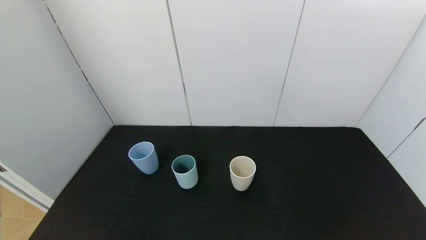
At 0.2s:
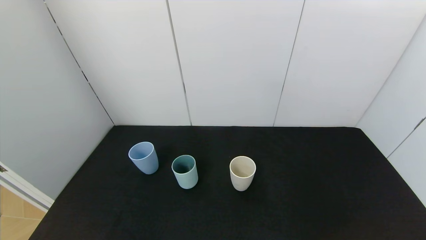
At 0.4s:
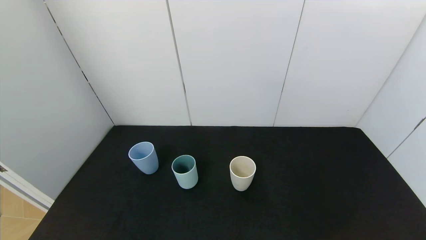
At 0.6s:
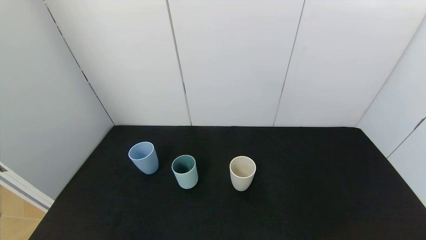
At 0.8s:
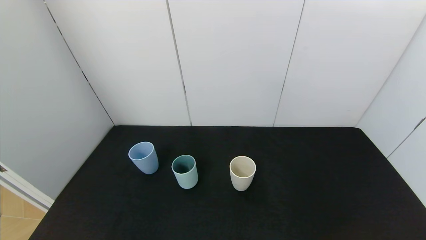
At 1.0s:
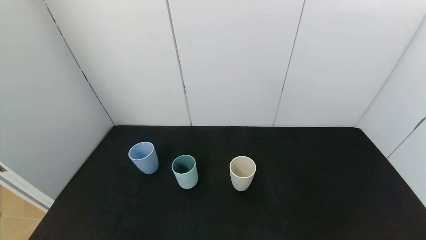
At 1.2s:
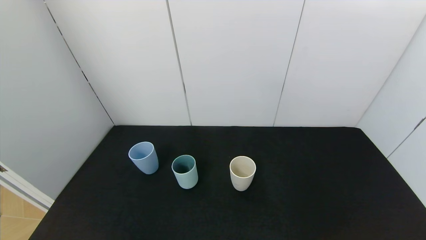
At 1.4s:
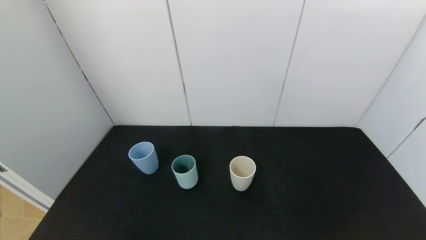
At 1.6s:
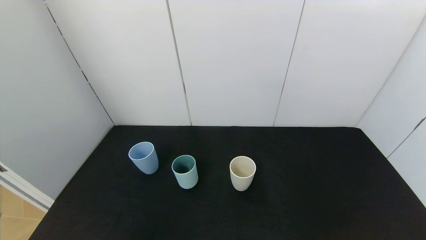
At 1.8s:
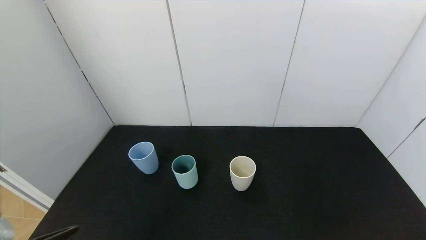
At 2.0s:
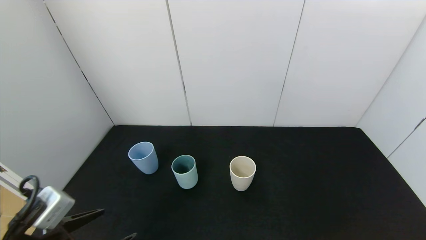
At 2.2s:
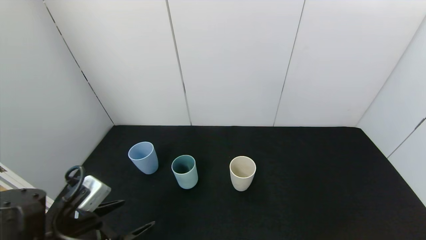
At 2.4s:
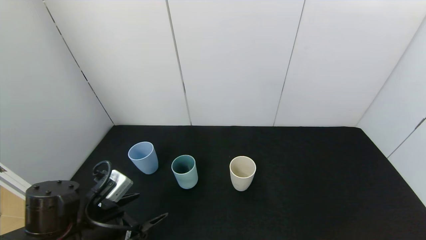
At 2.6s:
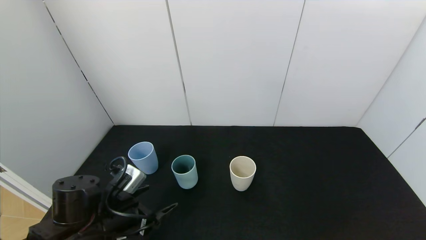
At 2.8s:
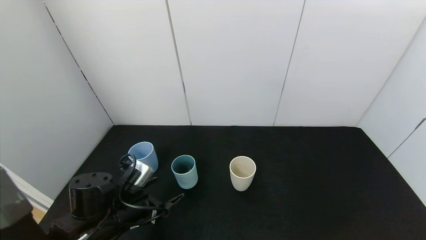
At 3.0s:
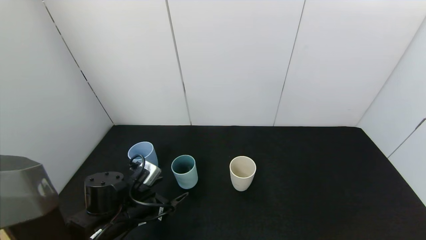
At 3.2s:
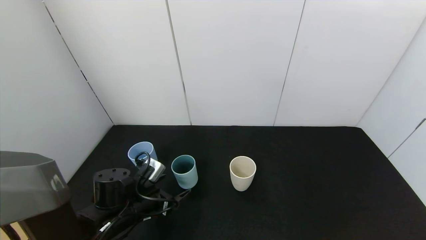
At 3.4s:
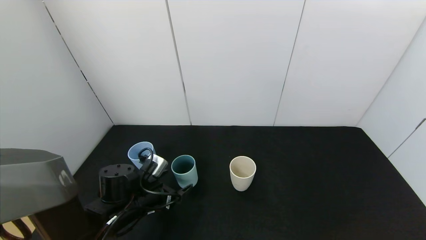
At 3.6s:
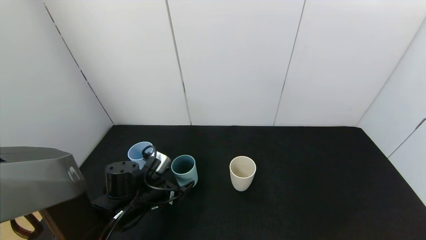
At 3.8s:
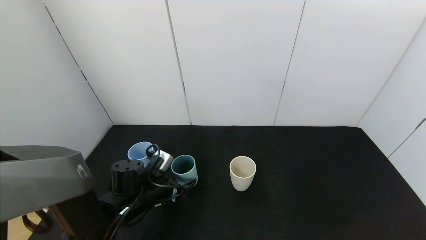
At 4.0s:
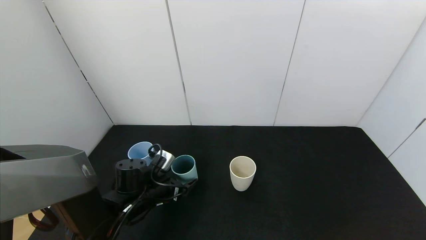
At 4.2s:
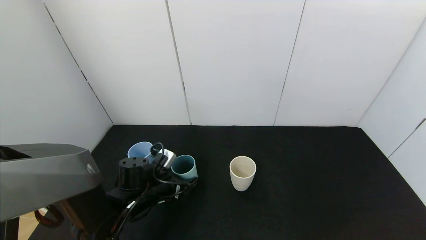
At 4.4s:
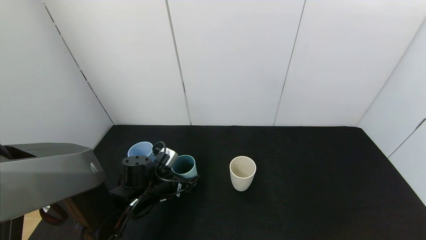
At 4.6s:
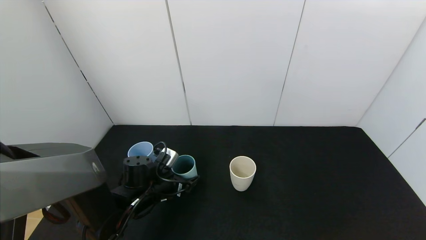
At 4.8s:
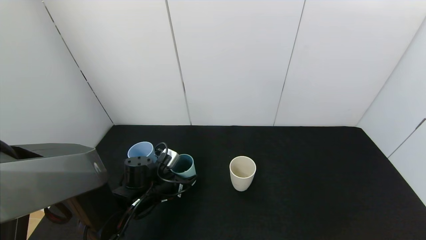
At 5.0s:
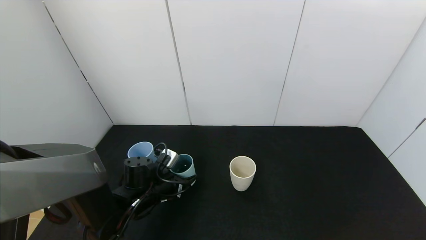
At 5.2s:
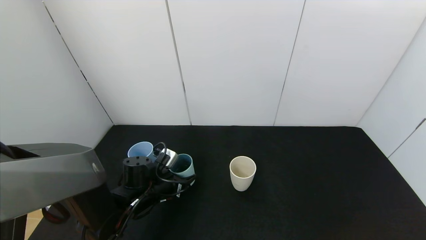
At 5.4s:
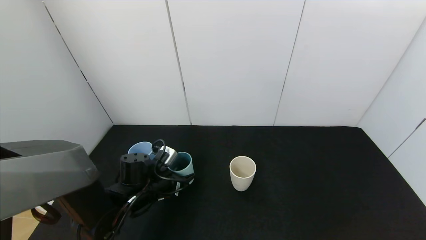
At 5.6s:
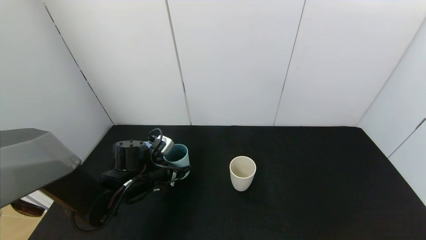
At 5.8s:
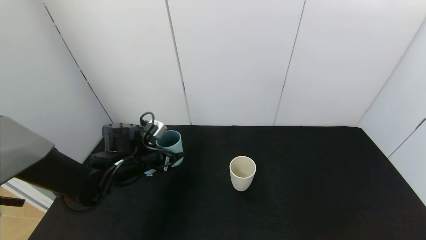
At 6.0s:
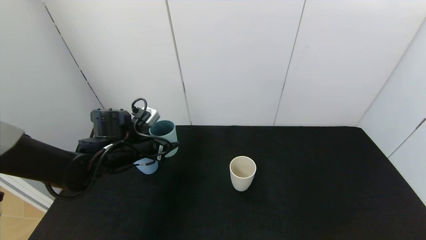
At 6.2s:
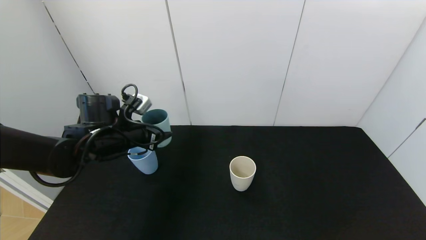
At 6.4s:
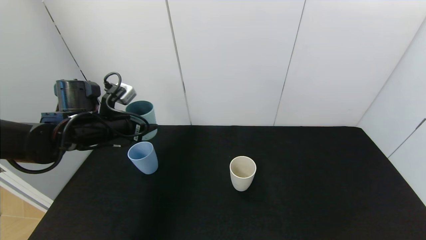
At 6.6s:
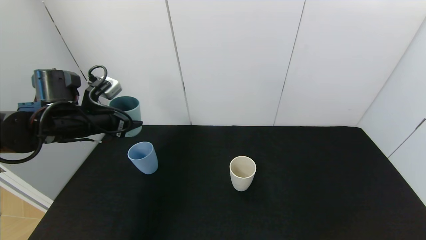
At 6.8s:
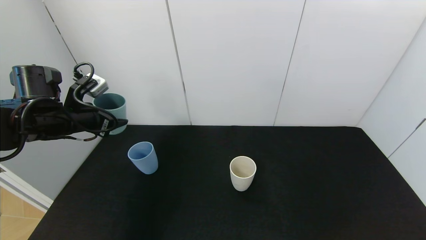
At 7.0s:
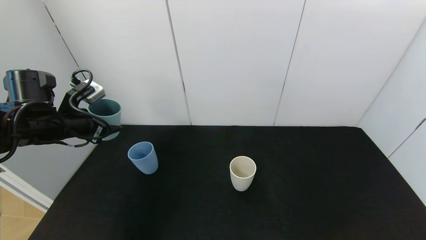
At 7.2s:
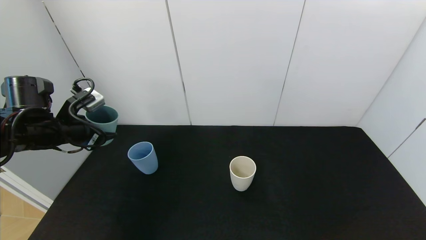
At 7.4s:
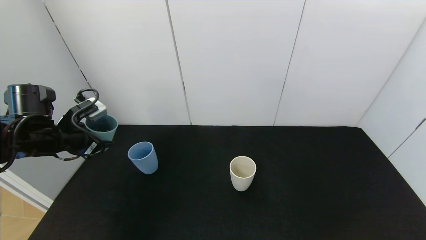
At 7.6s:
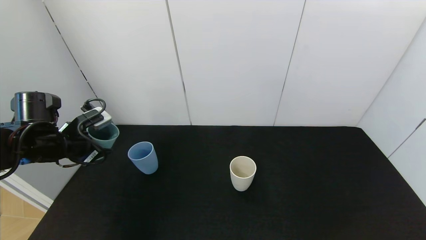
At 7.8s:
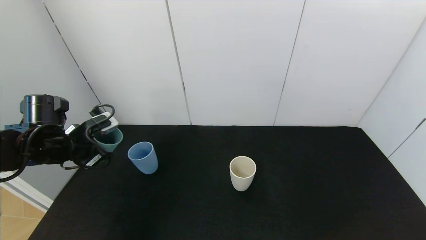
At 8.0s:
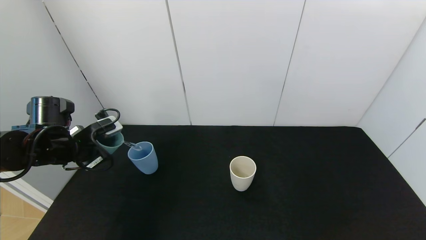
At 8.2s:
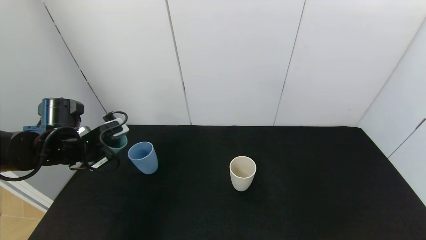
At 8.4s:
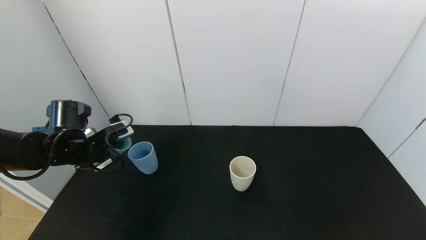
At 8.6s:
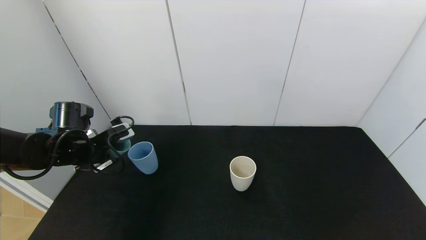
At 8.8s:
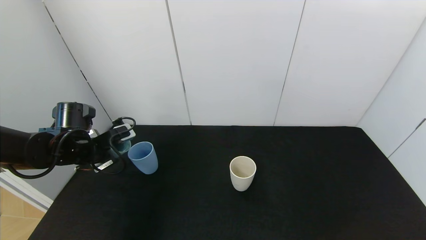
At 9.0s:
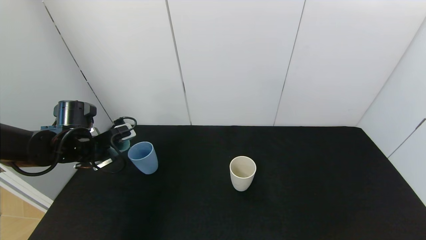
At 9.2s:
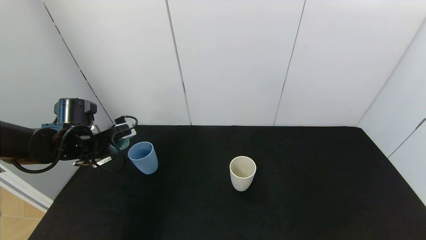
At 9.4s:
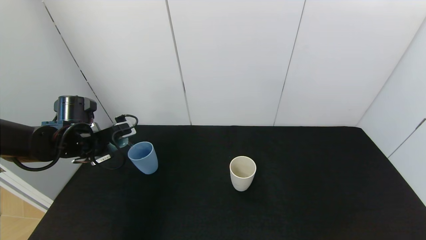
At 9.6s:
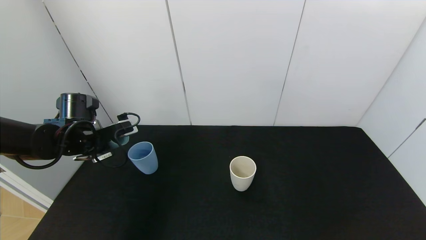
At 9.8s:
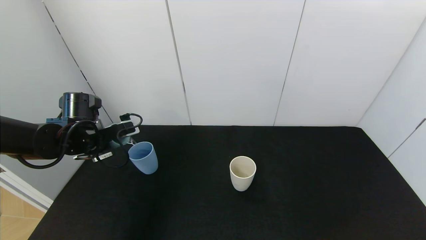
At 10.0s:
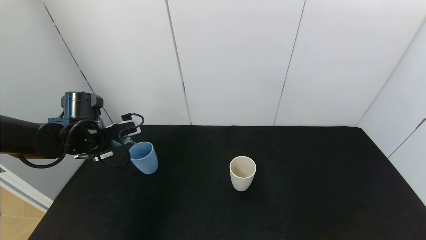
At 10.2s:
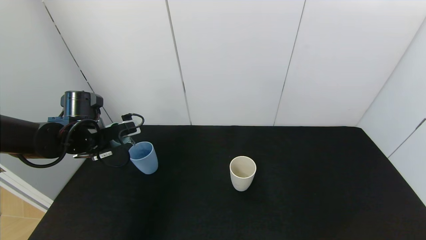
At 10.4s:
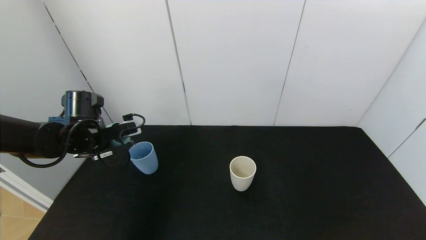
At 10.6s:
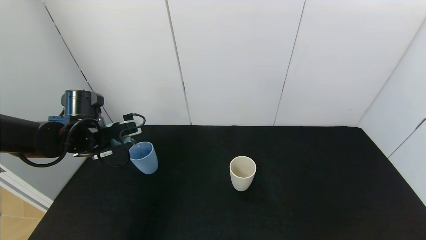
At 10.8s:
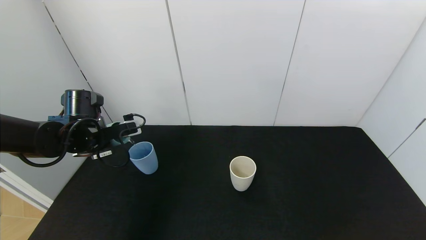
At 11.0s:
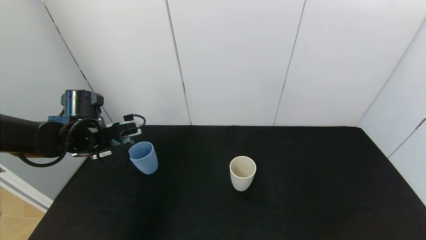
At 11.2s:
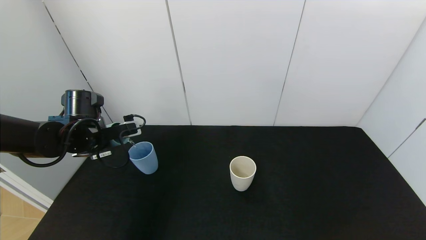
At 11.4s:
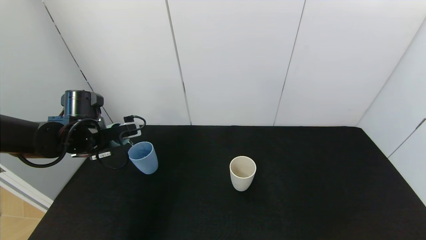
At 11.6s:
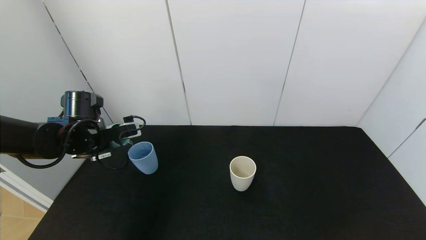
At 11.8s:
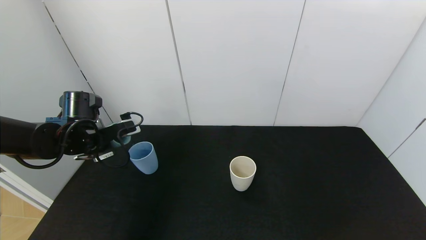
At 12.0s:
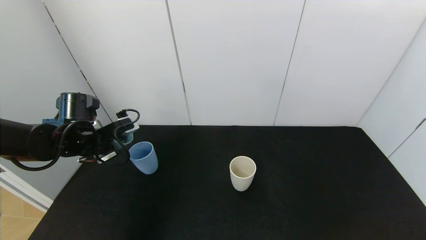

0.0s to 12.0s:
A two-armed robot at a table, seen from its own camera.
Task of the whole recording: use the gripper to pour the water into the other two cups on black table.
Step, 0.0s to 5.4s: Pick up the green plastic cup with left gripper.
1.6s to 3.0s: The left gripper moves forward, some 20 cm.
3.0s to 4.4s: The left gripper goes about 5 cm forward.
4.4s to 6.0s: The left gripper shifts about 10 cm upward, and closes its fingers.
6.0s to 7.6s: The left gripper heads to the left, covering about 10 cm.
7.6s to 9.0s: The grippers make only small movements.
9.0s to 12.0s: The grippers stay close to where they were, moving slightly.

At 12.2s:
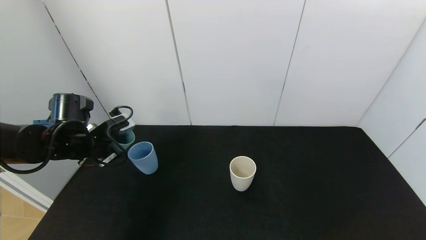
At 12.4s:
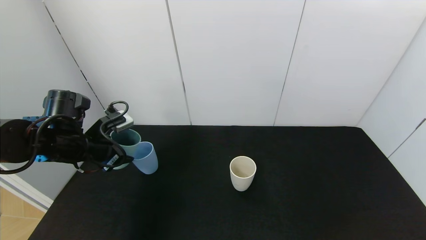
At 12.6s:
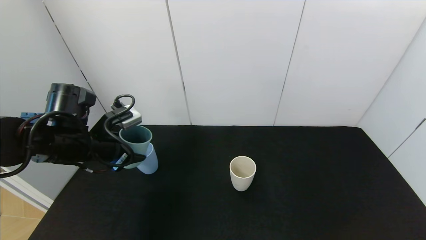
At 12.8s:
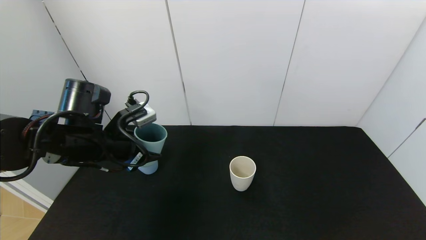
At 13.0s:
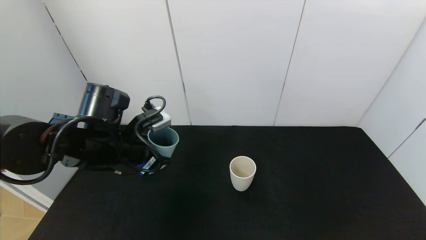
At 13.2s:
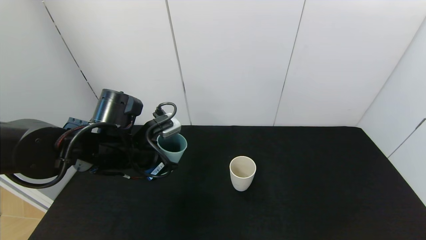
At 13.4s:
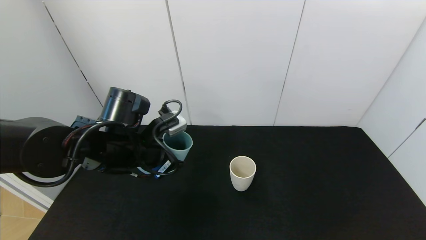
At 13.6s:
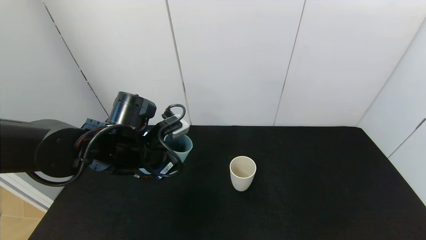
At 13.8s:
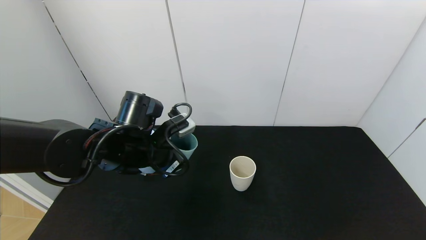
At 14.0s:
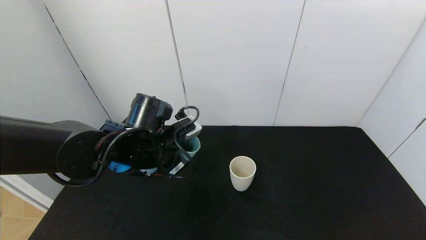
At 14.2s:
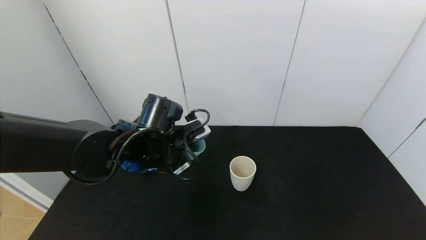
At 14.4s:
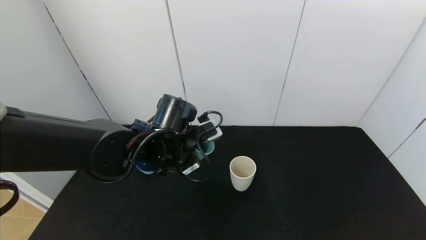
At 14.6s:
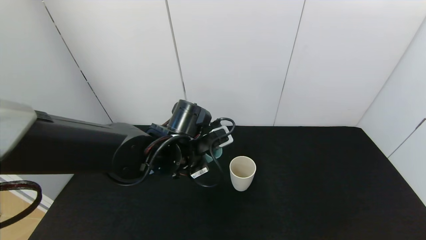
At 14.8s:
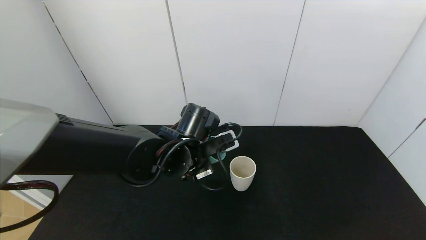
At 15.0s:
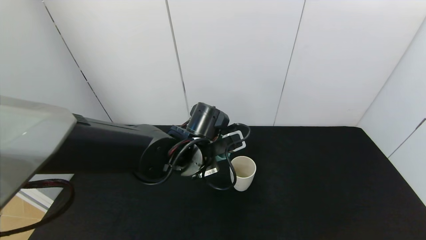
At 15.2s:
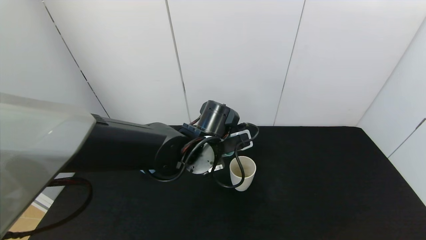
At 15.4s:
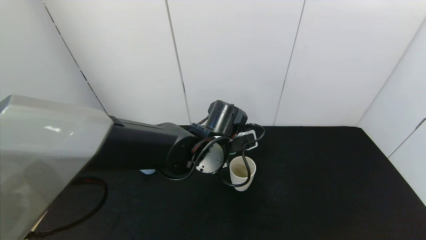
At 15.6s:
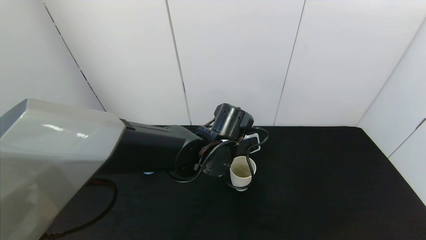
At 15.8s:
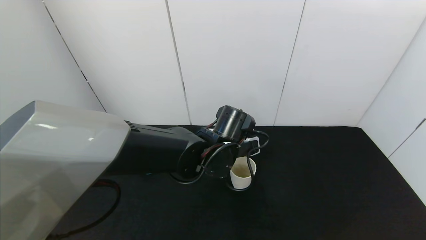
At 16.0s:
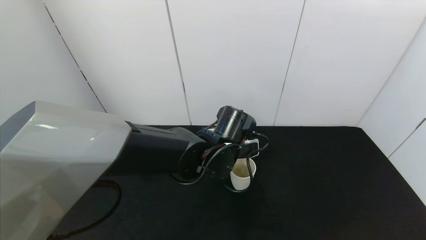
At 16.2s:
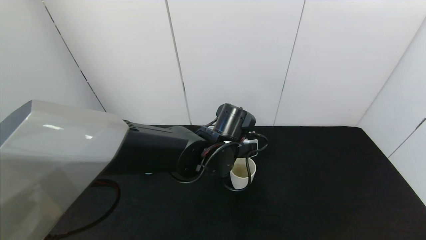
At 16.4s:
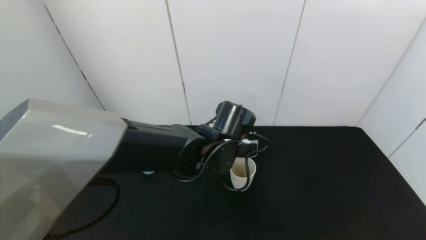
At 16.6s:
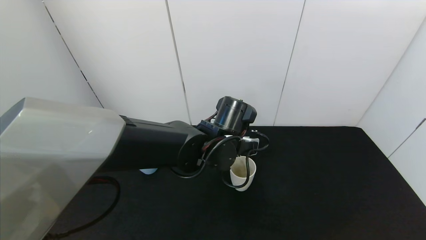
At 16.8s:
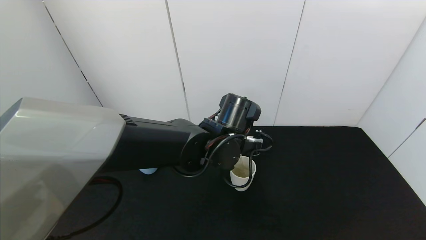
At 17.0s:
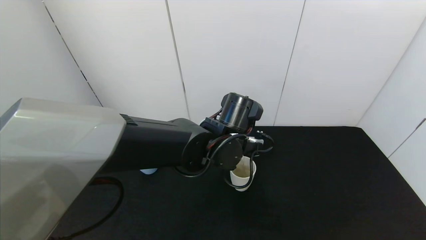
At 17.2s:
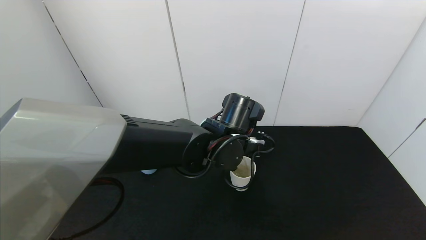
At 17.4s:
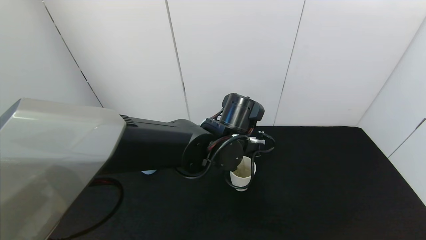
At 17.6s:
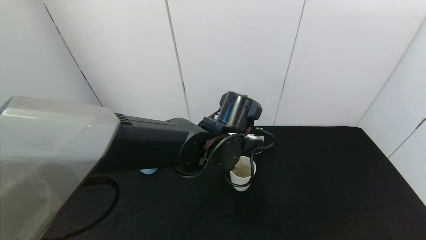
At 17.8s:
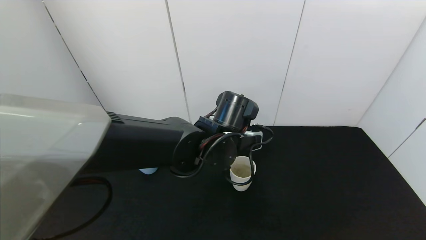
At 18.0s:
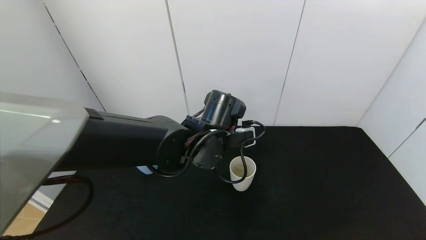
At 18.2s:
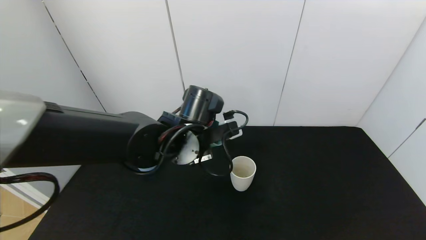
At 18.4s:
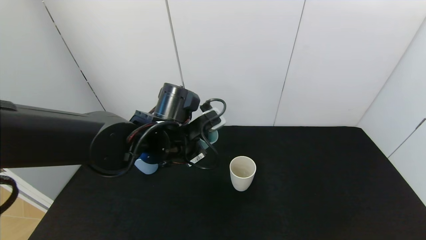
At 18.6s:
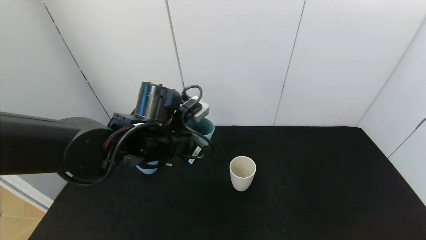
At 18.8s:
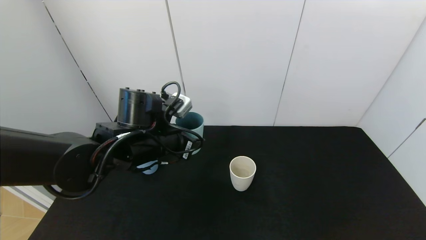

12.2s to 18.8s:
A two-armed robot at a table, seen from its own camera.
Task of the whole recording: use the gripper to pour the water into the other two cups on black table.
Step, 12.4s to 18.2s: Pour water into the gray plastic cup with left gripper.
12.2s to 13.8s: The left gripper shifts about 15 cm to the right.
13.8s to 15.4s: The left gripper moves to the right, about 15 cm.
17.2s to 18.8s: The left gripper moves to the left, approximately 15 cm.
